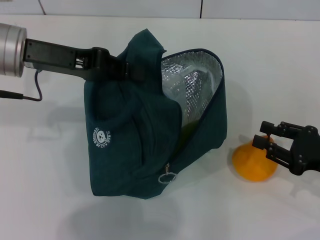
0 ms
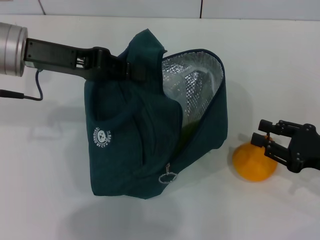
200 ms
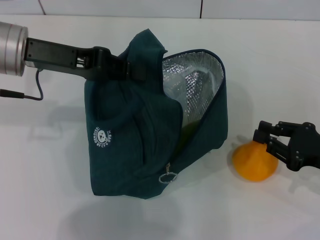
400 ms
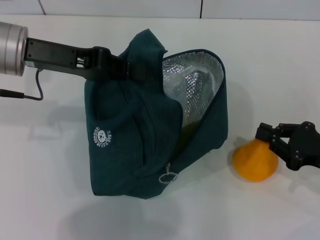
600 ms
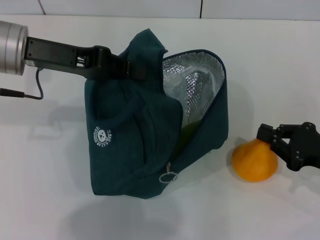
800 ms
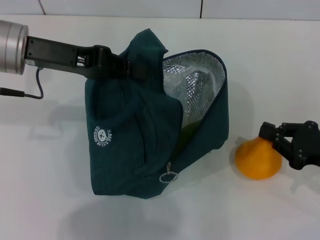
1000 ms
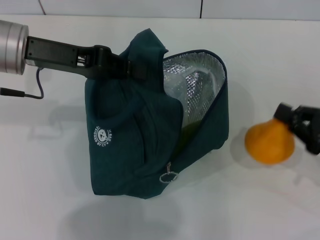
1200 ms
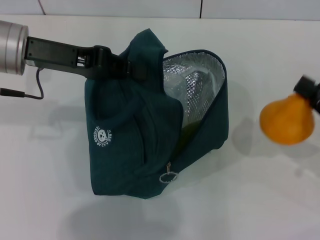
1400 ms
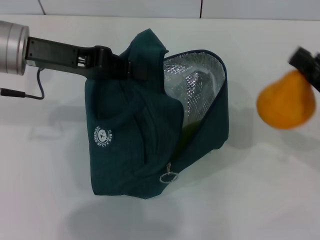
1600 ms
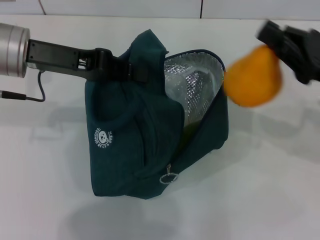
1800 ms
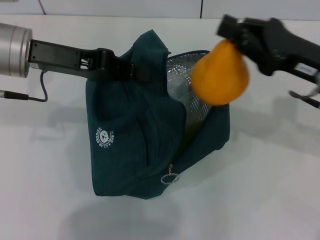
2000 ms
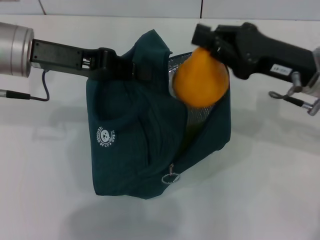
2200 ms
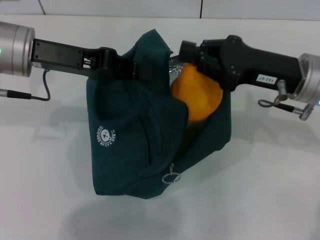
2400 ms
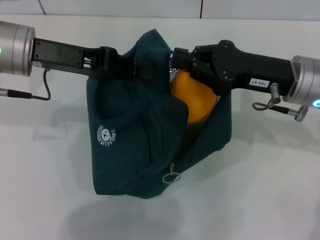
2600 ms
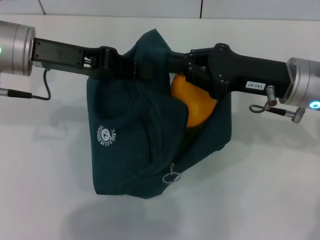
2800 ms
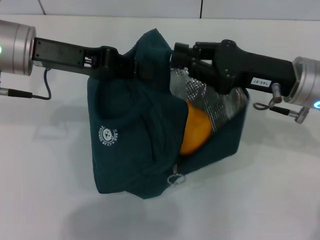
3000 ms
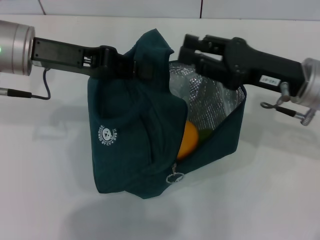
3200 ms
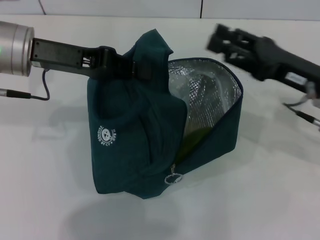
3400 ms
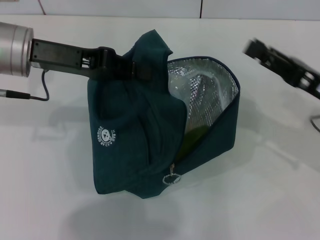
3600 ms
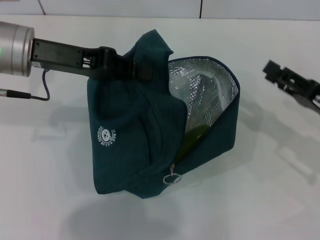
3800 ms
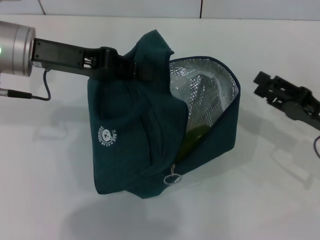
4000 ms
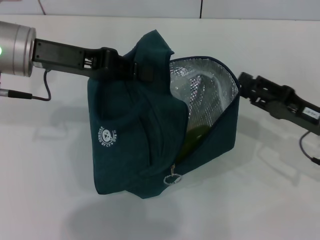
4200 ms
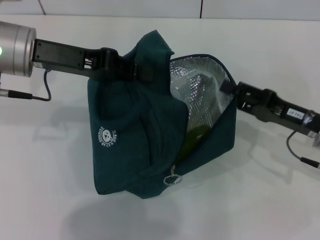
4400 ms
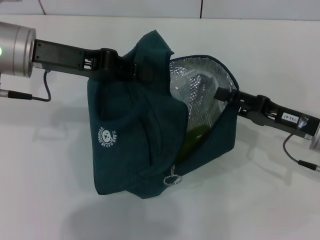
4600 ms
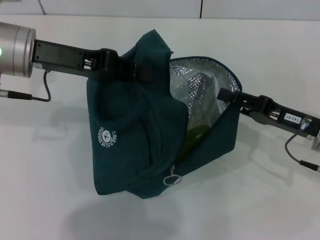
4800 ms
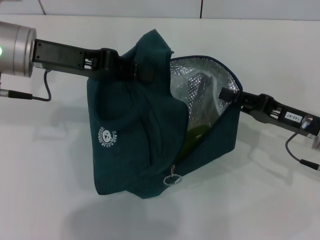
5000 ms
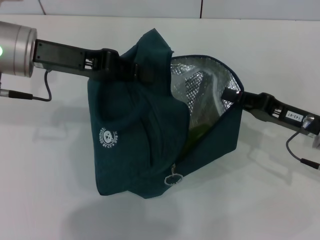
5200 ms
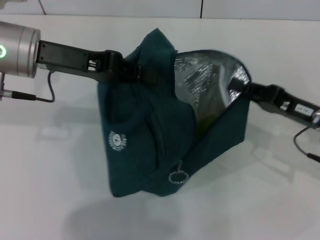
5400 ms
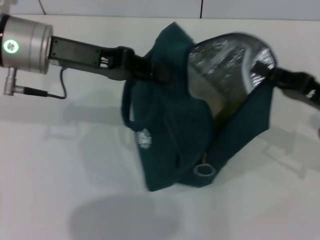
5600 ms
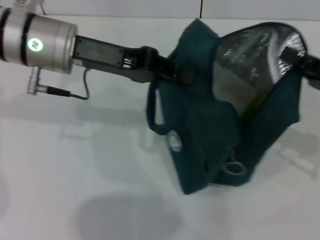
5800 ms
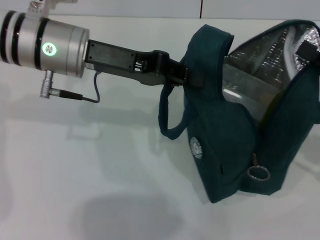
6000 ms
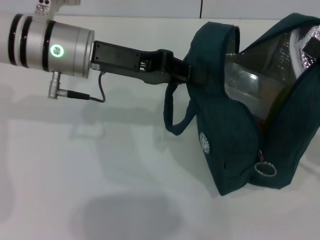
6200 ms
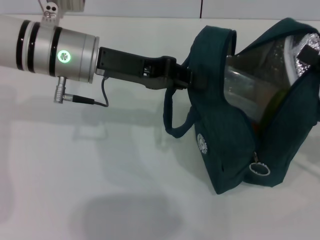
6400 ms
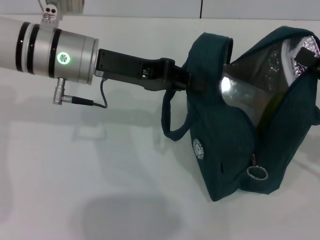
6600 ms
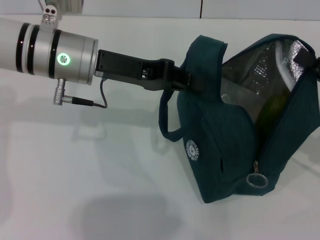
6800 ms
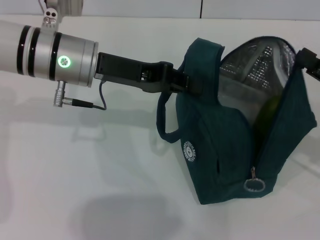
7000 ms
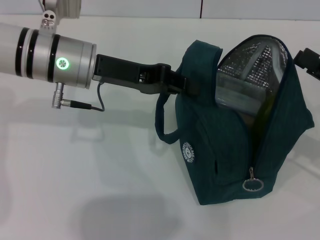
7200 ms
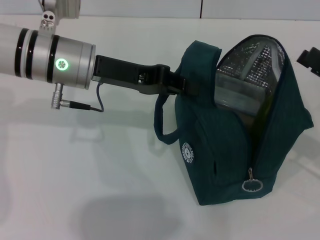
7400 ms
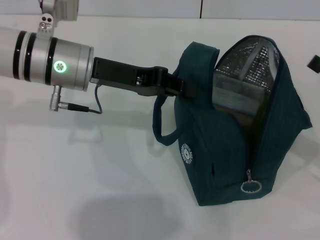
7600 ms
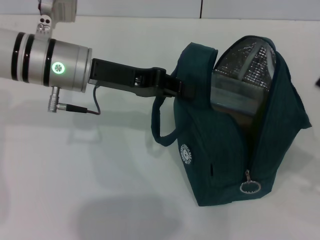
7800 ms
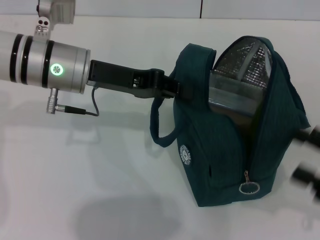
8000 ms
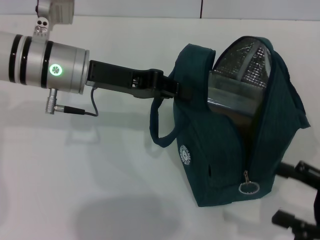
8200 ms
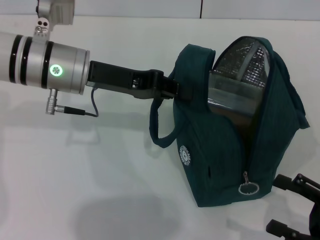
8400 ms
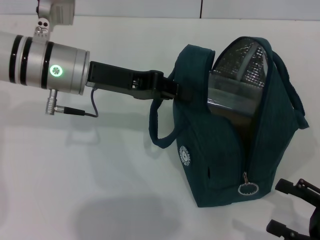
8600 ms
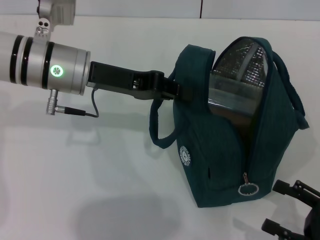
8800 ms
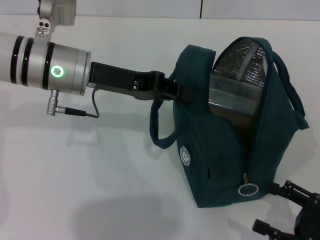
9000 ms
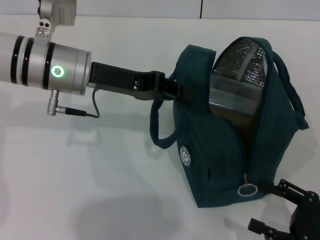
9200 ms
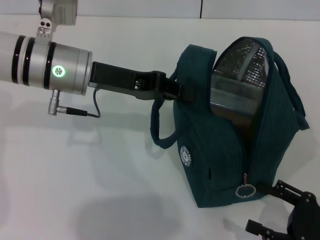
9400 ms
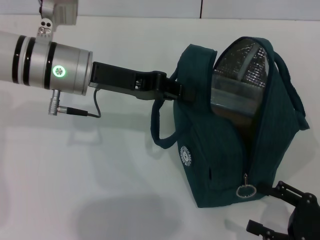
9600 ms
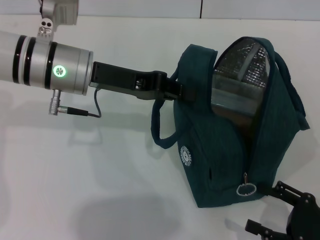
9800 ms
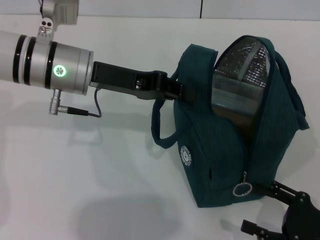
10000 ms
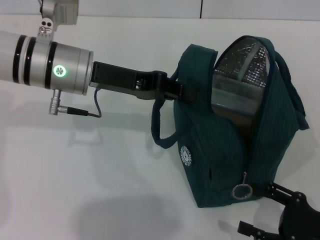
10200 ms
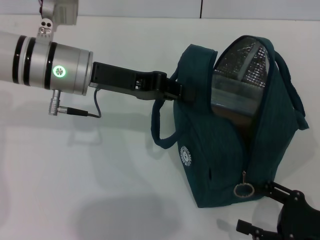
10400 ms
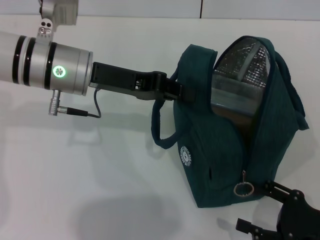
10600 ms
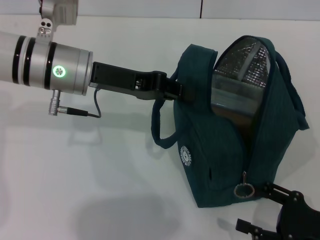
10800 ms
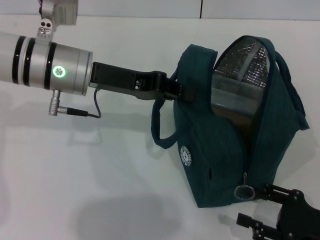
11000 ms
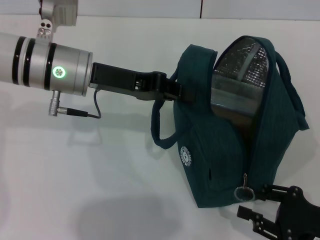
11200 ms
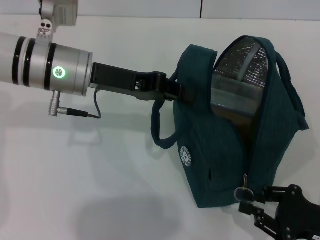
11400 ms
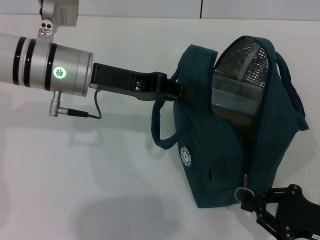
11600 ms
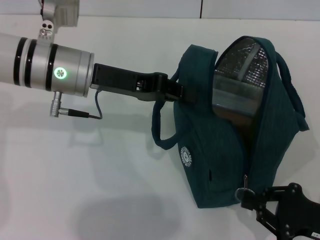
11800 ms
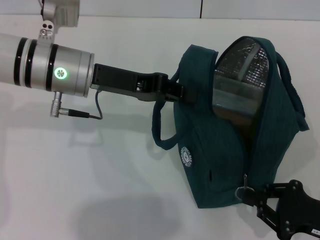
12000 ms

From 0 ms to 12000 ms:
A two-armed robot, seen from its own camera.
Step, from 3400 ms to 7200 ms: Hold the lunch bag with your right hand.
From 0 ms to 1600 ms: The right gripper moves upward, about 5 cm, and closes up.
From 1600 ms to 3000 ms: The right gripper moves to the left and forward, some 15 cm.
From 3000 ms to 4400 ms: The right gripper goes some 10 cm downward and to the right, and opens up.
From 4400 ms to 6000 ms: The left gripper is displaced to the right by roughly 5 cm. The right gripper travels to the right and upward by some 10 cm, and closes its fingers.
From 6000 ms to 7600 ms: The right gripper opens its fingers.
From 7600 ms to 9000 ms: The right gripper moves backward and downward, approximately 15 cm.
From 9000 ms to 10400 ms: The grippers make only small movements.
From 10400 ms to 12000 ms: The right gripper closes.

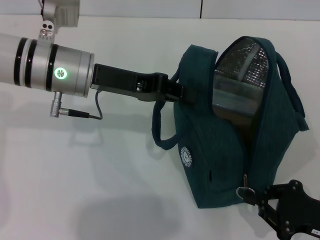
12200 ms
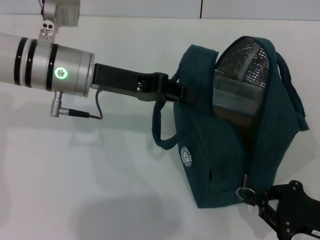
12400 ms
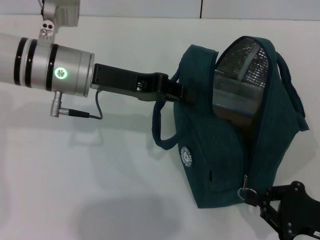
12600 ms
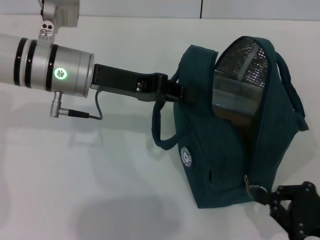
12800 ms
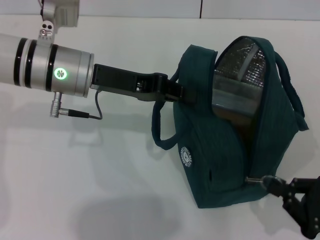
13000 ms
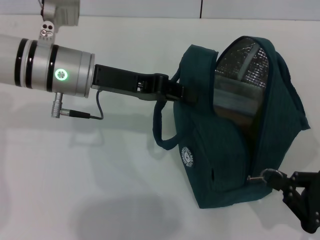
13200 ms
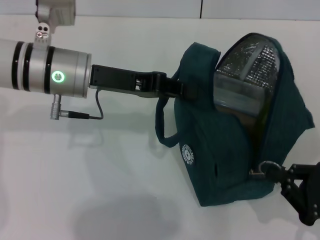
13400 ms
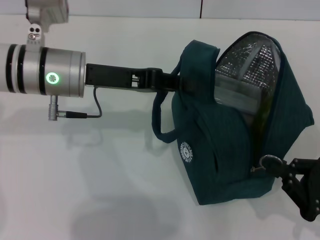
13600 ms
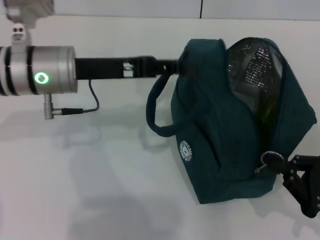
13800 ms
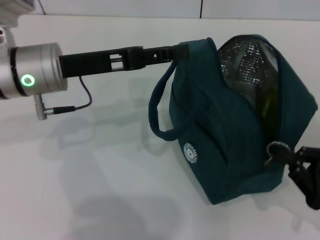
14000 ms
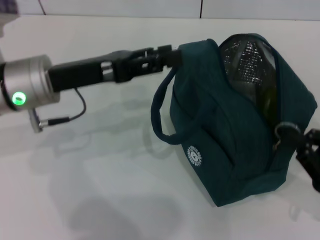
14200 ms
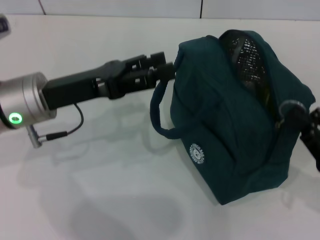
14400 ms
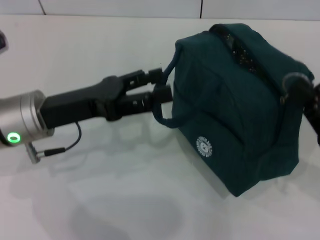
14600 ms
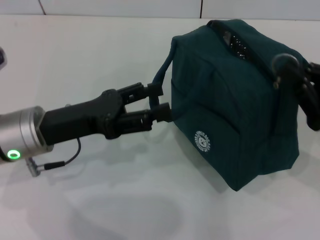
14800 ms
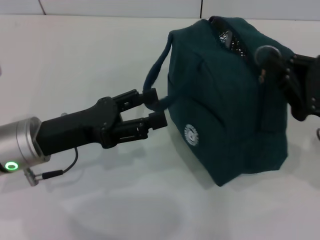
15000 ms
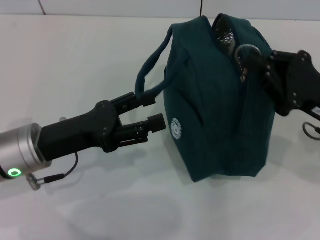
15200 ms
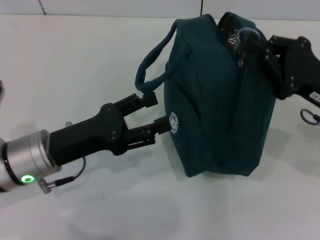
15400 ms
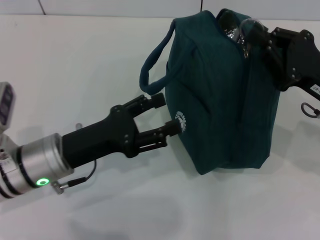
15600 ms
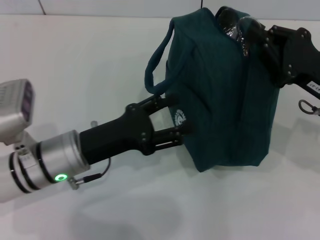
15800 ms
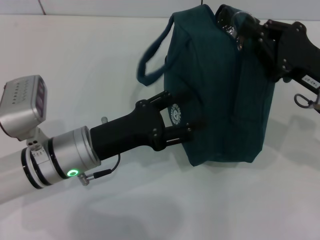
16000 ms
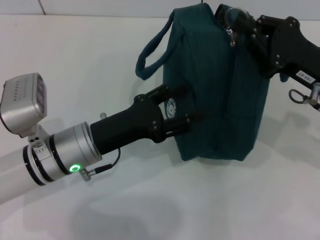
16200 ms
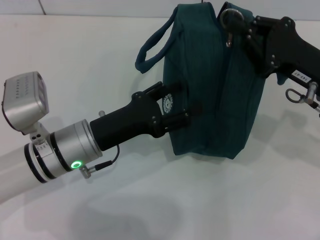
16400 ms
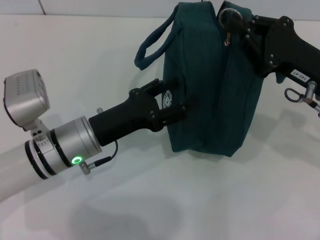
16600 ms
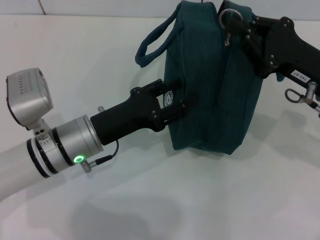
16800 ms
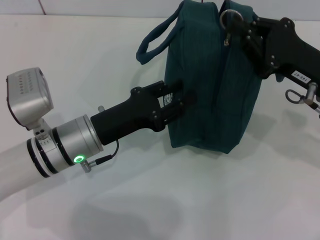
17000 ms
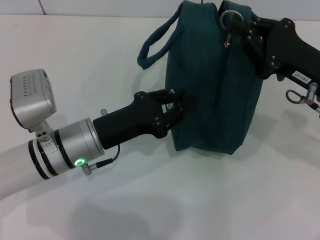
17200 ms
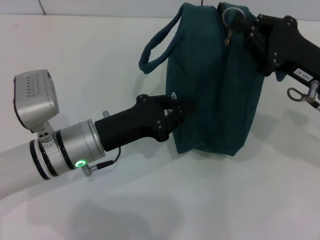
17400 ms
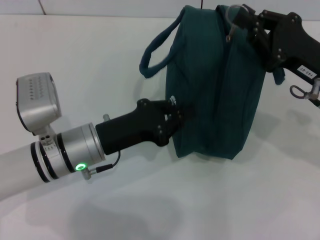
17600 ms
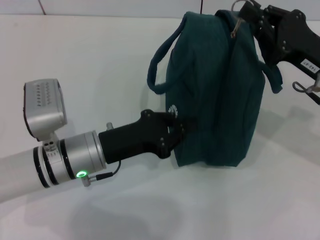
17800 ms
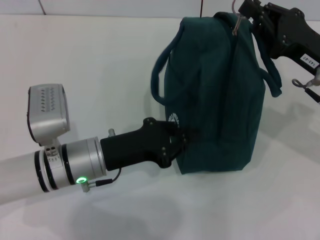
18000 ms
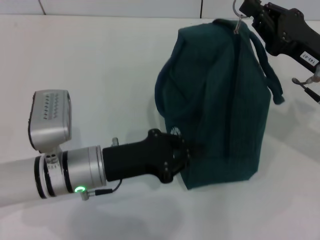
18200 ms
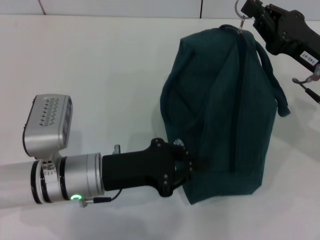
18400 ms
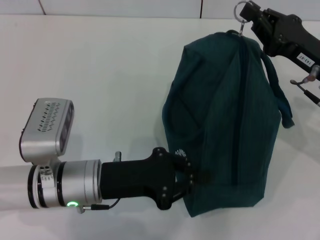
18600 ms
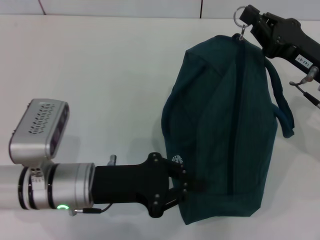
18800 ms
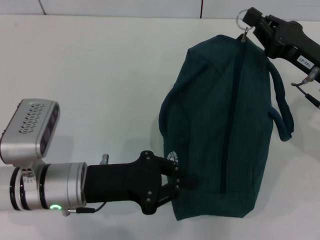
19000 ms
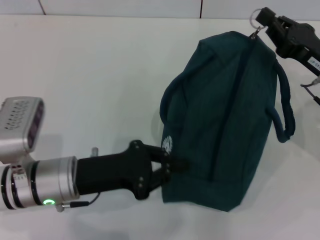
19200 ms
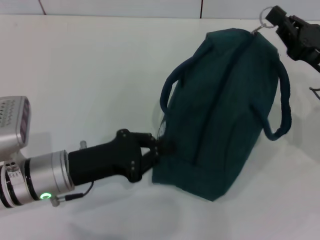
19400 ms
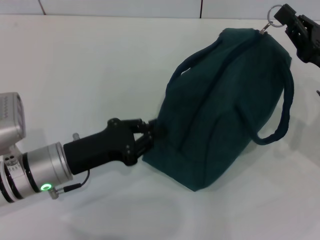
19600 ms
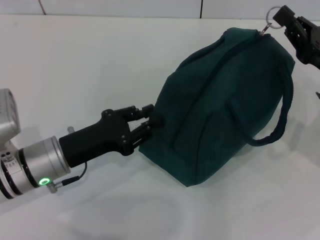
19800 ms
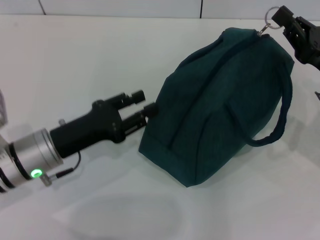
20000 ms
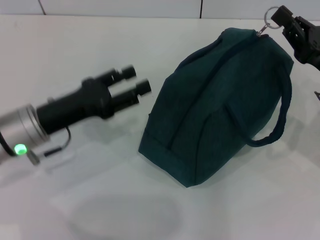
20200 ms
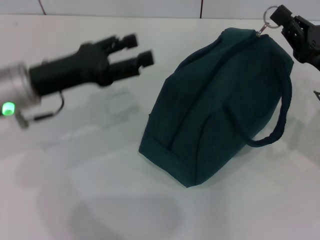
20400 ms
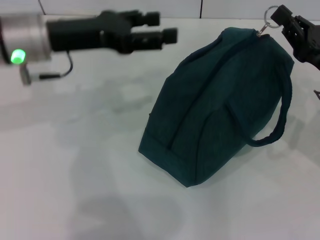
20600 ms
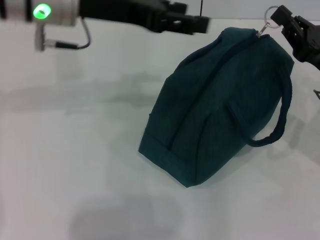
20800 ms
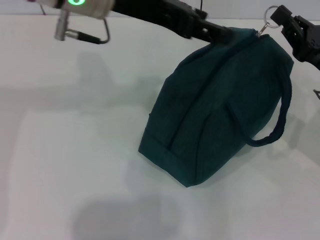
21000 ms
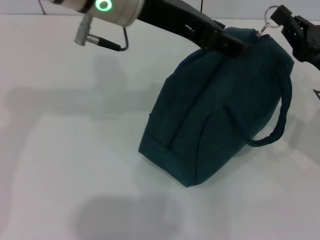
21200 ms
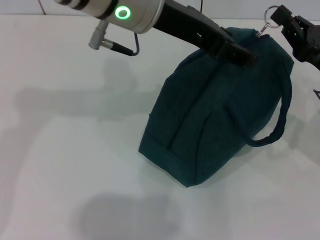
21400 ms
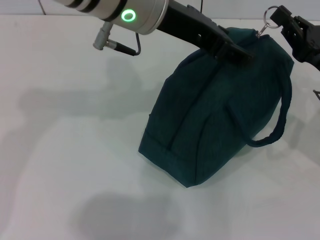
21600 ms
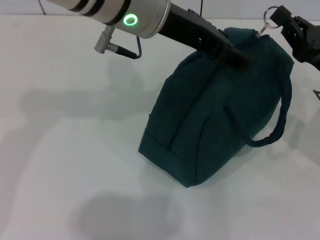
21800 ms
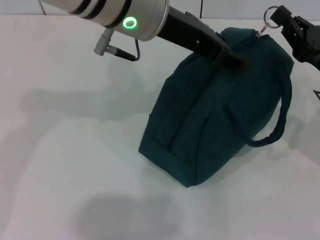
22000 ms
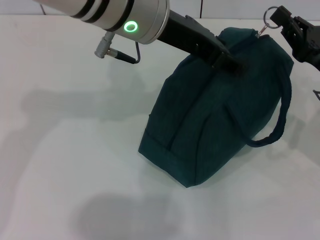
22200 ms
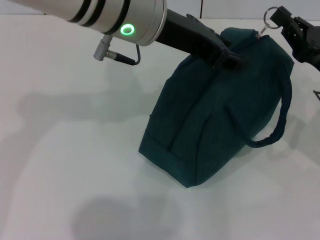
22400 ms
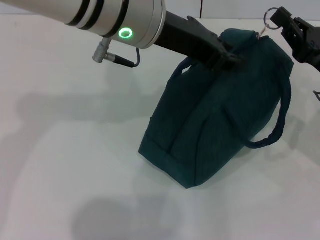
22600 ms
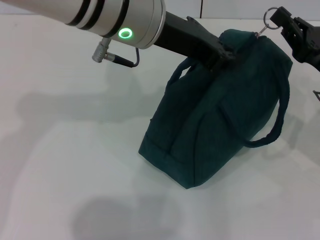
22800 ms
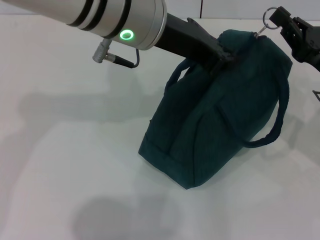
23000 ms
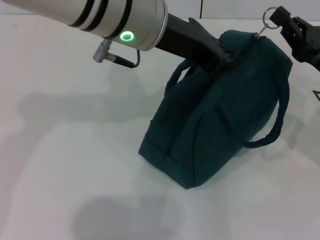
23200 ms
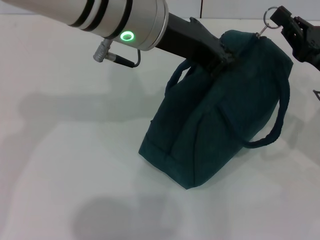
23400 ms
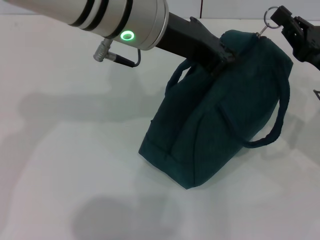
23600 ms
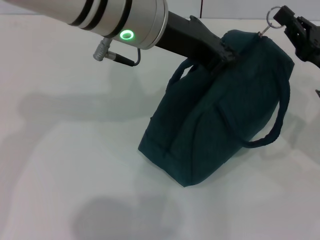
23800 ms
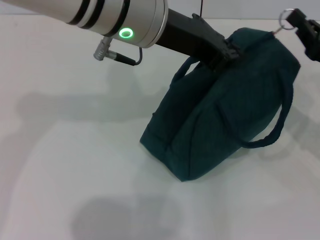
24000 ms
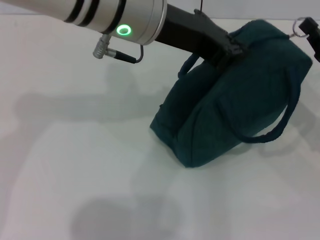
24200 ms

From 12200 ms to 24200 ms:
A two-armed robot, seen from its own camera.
From 13800 ms to 15200 ms: The right gripper heads forward, upward and to the left, covering some 15 cm; the left gripper goes roughly 10 cm backward and downward, and opens up.
From 15200 ms to 16600 ms: The left gripper is displaced to the right by about 5 cm.
From 16600 ms to 18200 ms: The left gripper closes its fingers.
From 18200 ms to 19800 ms: The left gripper travels to the left by about 5 cm.
From 19800 ms to 21200 ms: The left gripper shifts roughly 25 cm upward and to the right, and opens its fingers.
From 21200 ms to 22600 ms: The grippers make only small movements.
From 22600 ms to 24200 ms: The left gripper closes.
